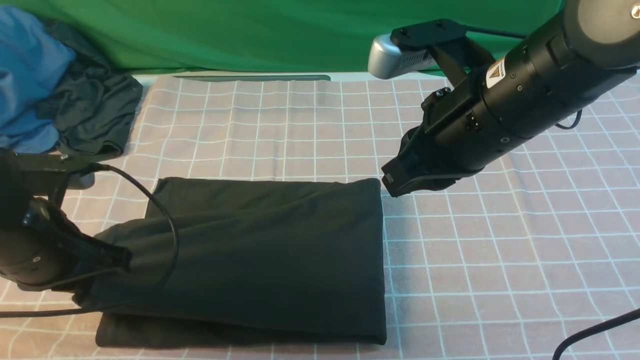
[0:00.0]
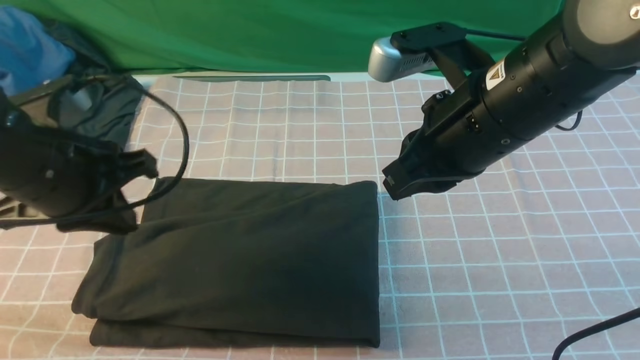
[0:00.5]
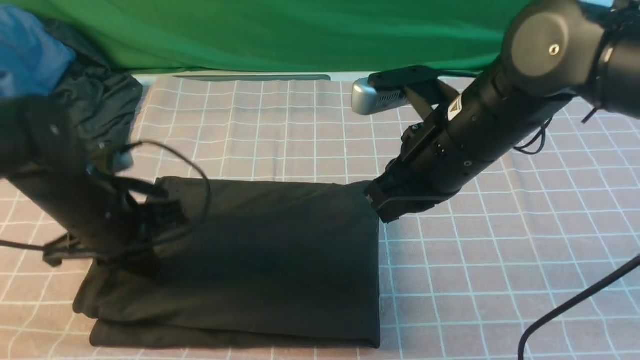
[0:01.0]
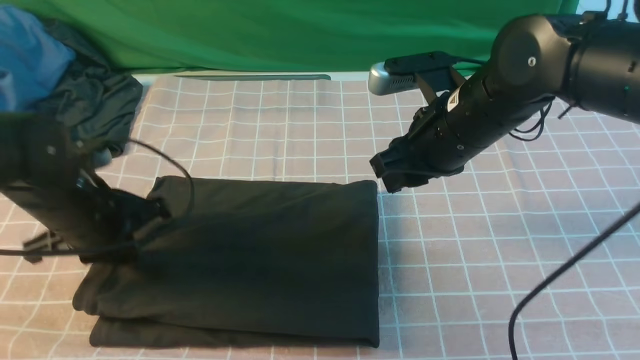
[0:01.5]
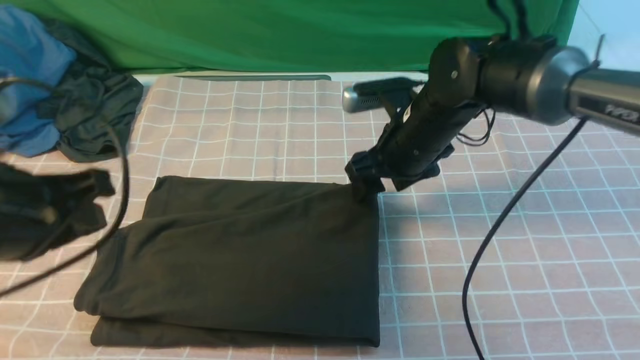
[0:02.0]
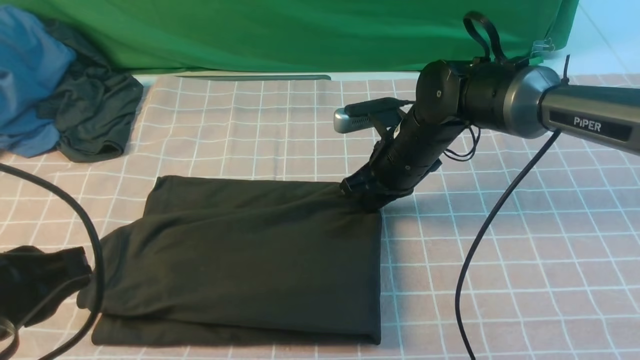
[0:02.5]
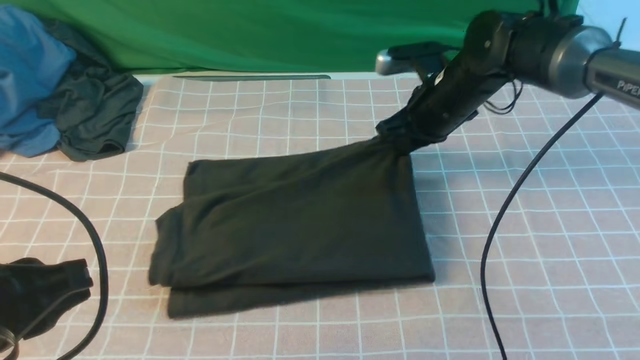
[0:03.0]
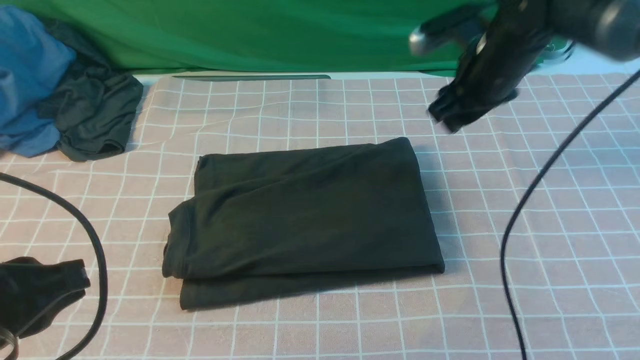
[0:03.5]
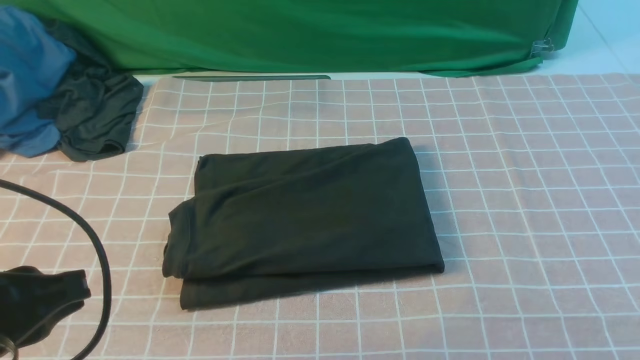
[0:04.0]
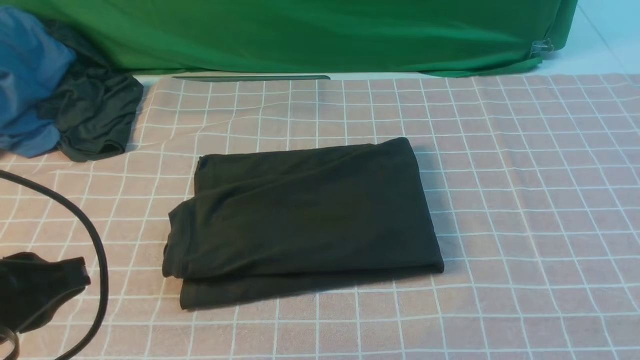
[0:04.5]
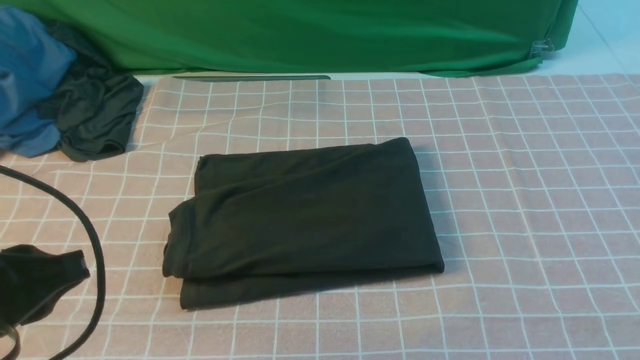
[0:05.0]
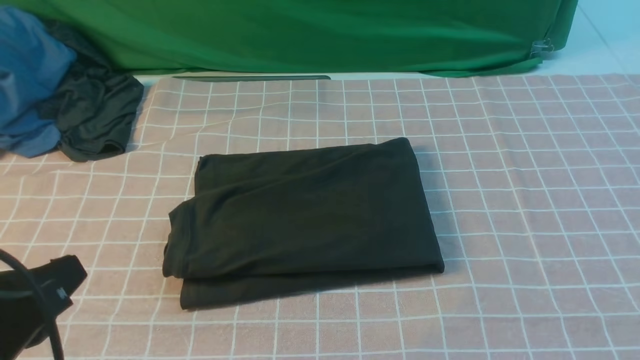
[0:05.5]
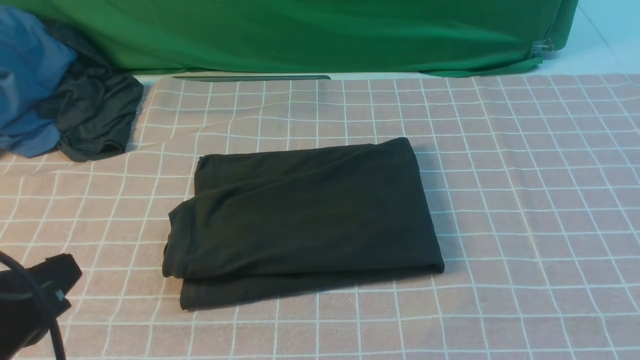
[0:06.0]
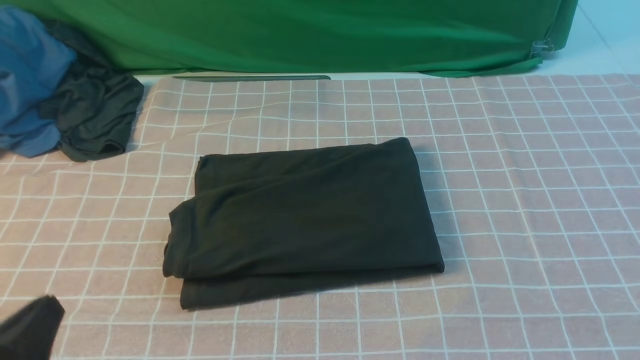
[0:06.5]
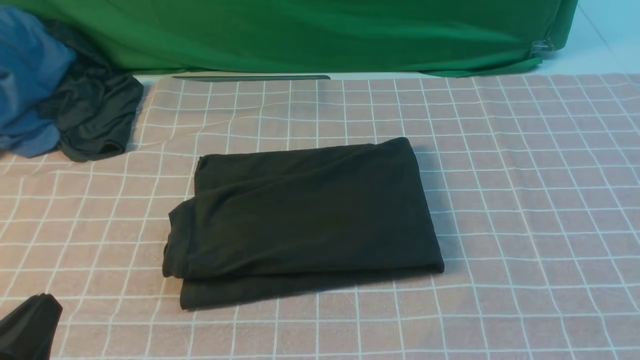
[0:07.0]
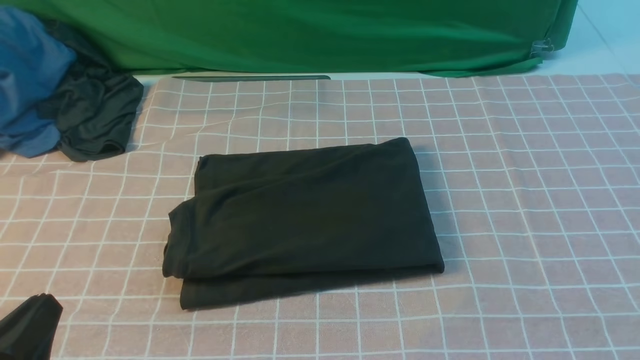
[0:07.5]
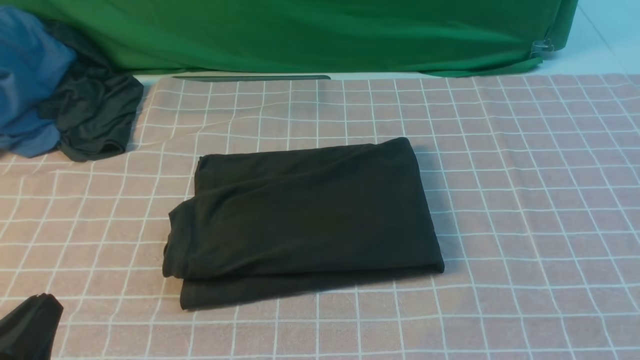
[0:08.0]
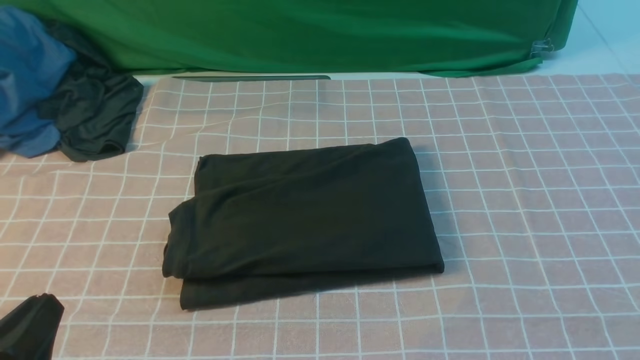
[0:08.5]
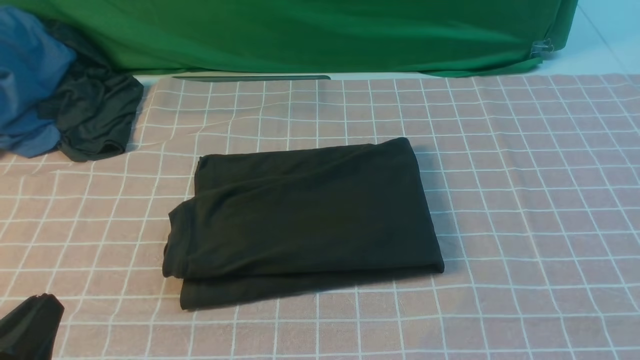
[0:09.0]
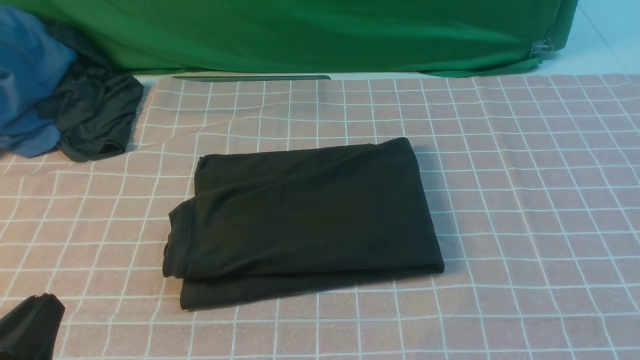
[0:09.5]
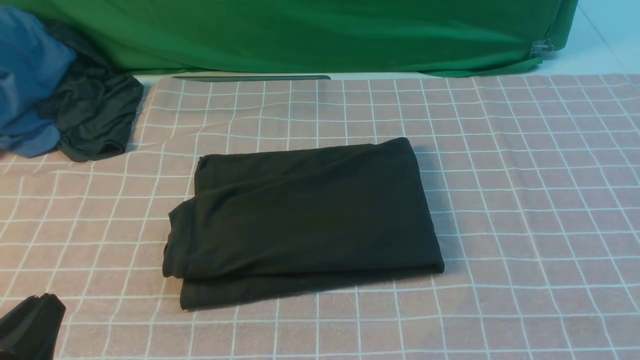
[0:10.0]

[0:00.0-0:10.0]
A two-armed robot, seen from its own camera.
0:00.0 to 0:02.0: The left gripper shifts roughly 10 cm upward and backward; the right gripper goes roughly 15 cm downward and forward, and opens.
0:02.0 to 0:04.0: The left gripper is displaced backward by approximately 5 cm; the right gripper travels upward, backward and to the right by roughly 35 cm, and closes its fingers.
0:06.0 to 0:08.0: The left gripper goes some 10 cm downward.

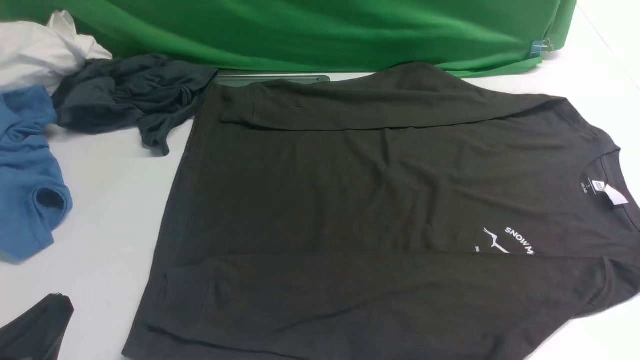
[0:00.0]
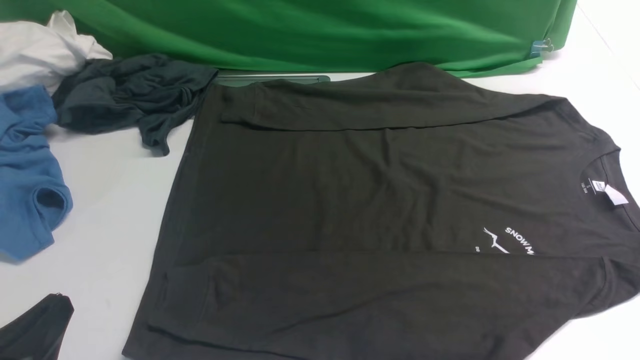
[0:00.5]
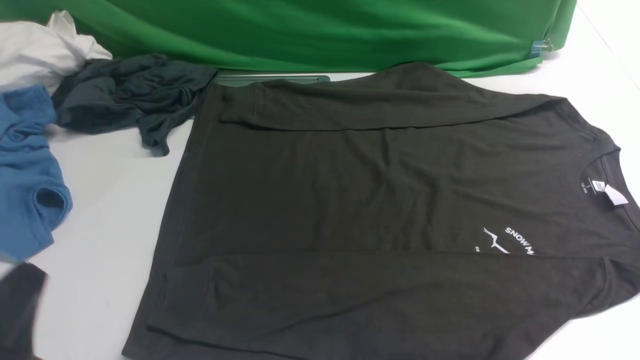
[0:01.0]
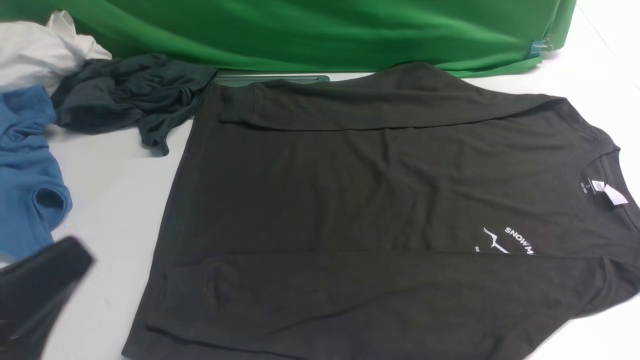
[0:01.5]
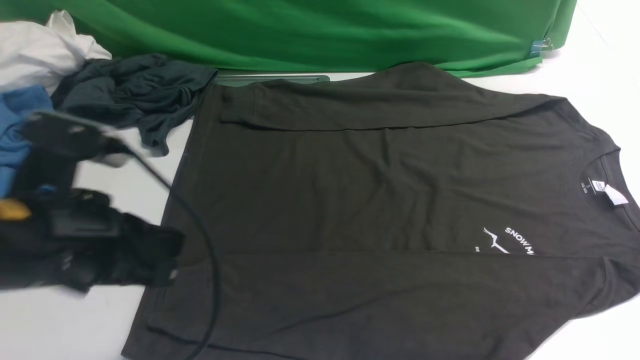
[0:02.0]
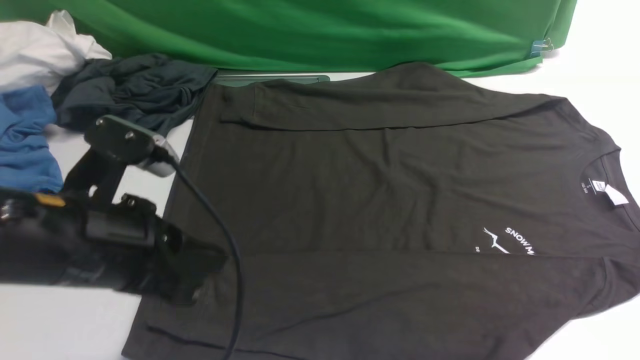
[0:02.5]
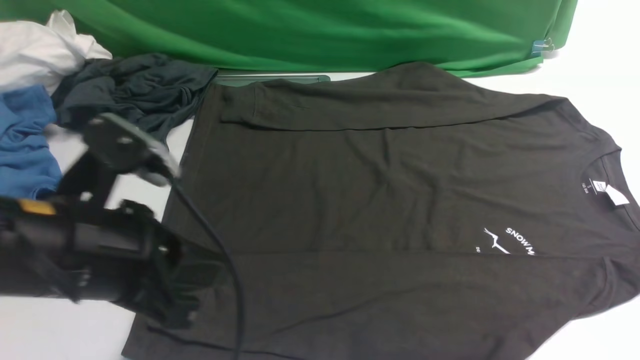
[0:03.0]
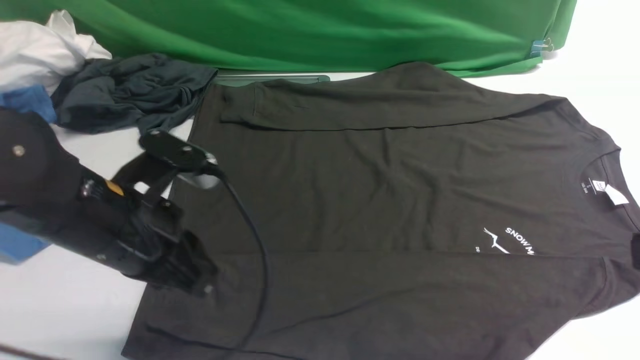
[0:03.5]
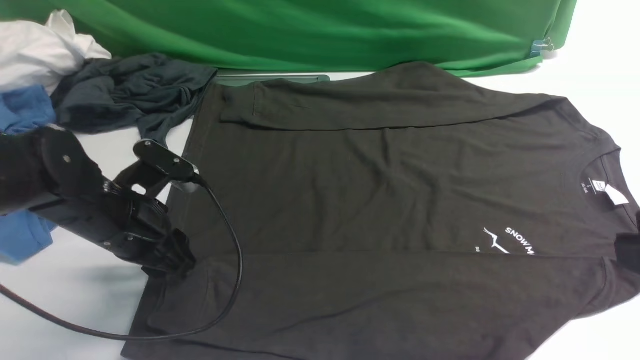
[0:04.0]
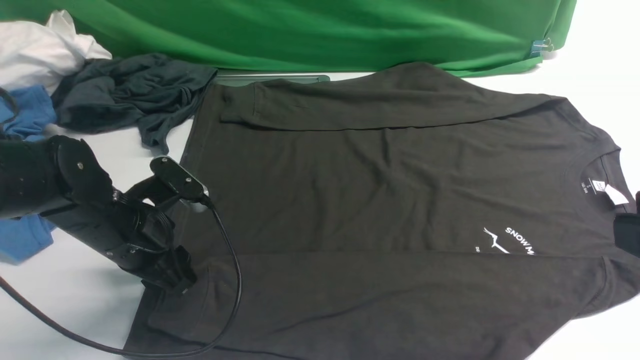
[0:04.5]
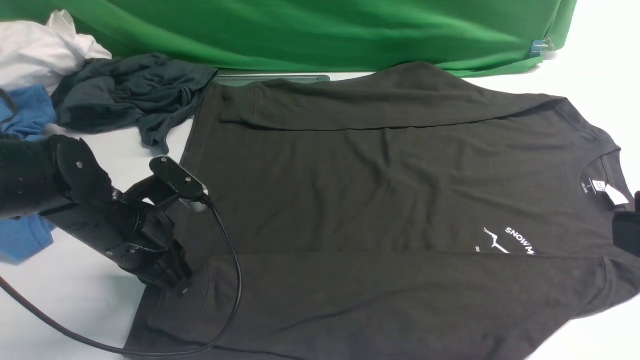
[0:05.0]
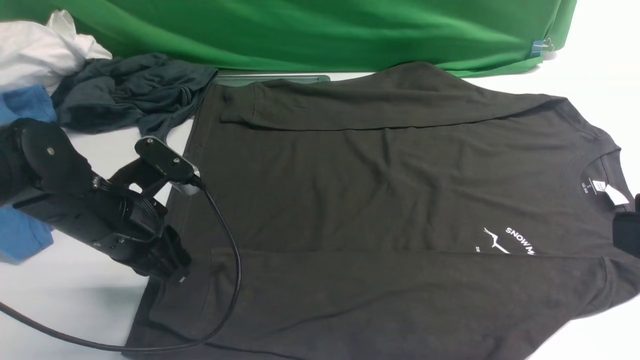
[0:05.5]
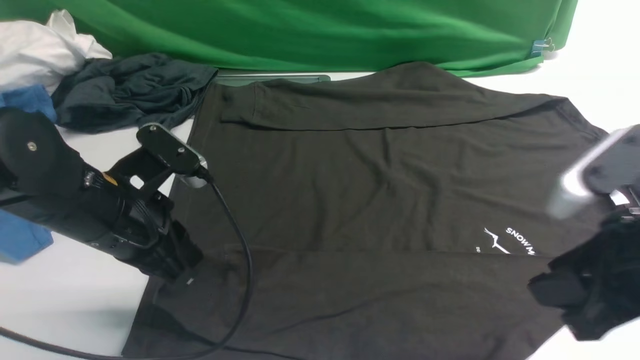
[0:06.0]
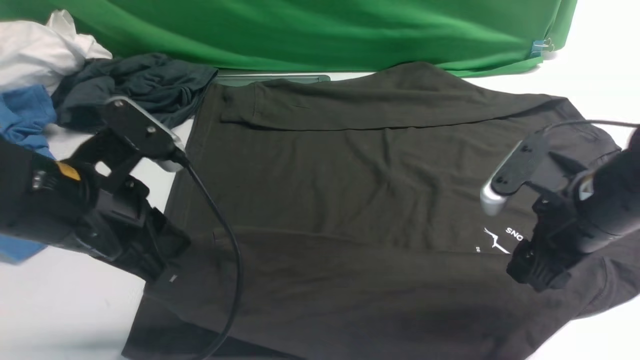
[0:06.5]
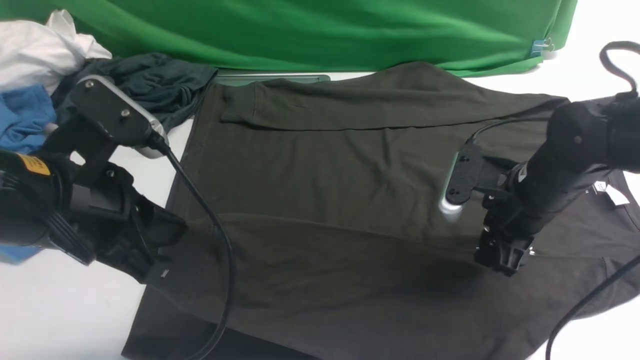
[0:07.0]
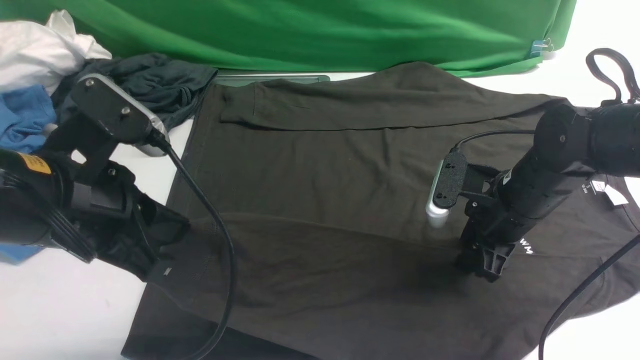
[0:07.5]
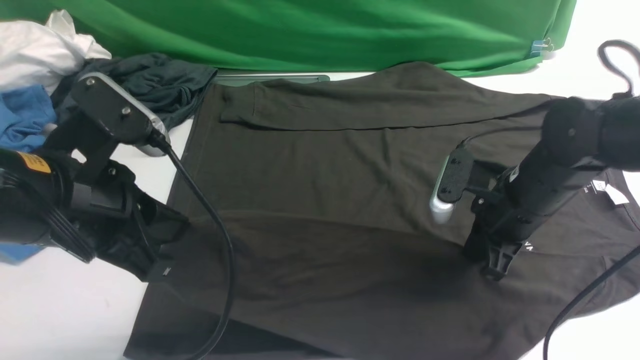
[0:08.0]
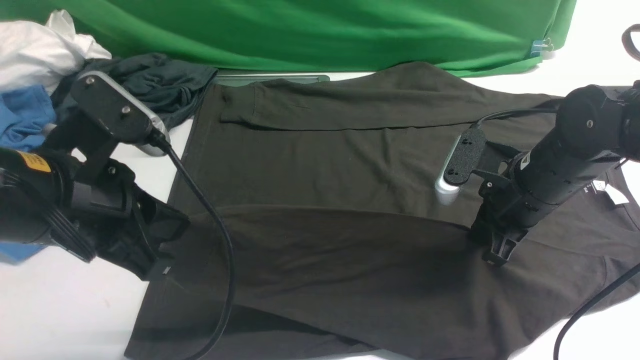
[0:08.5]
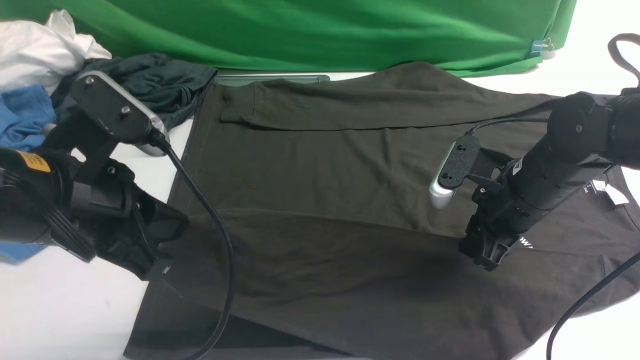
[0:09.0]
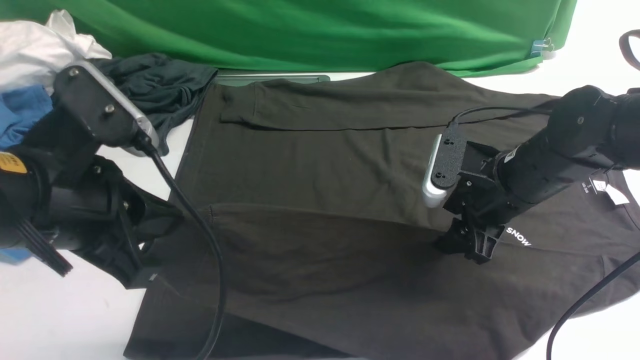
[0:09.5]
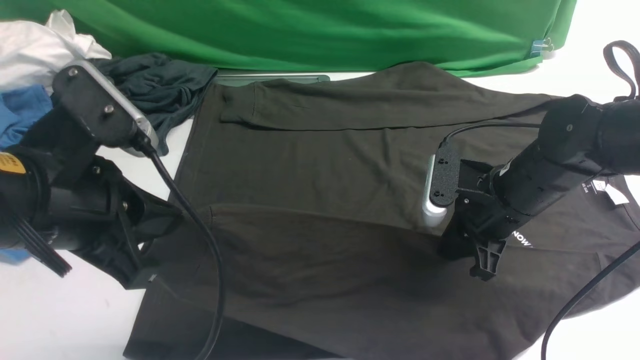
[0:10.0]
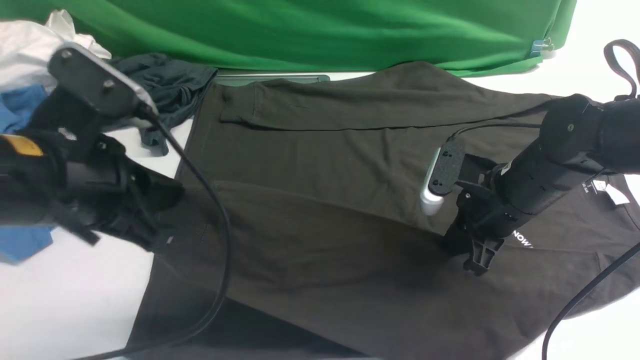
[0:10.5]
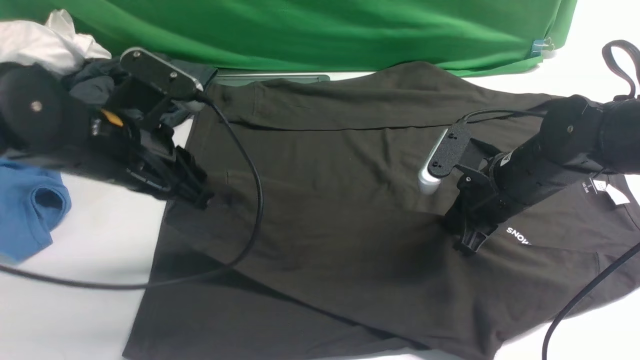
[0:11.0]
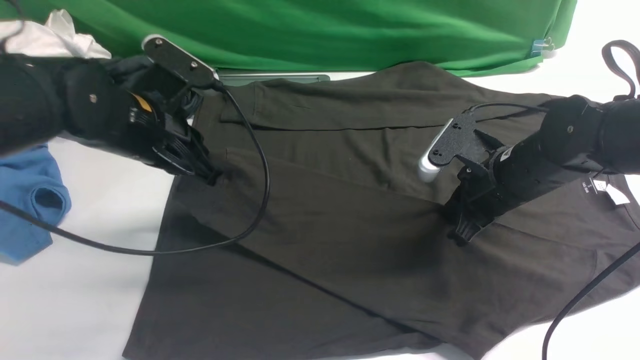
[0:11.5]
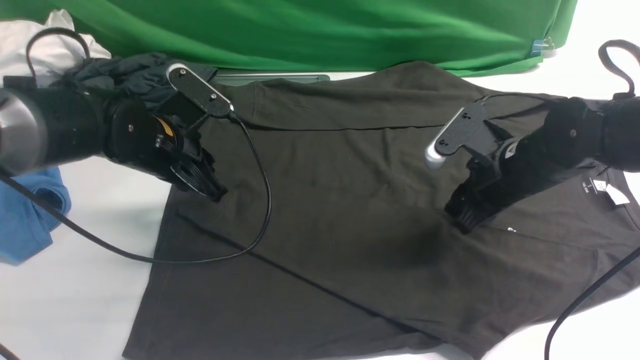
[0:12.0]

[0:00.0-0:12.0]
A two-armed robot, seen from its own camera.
Step, 0:00.0 to 0:05.0: use the left arm to clamp the cuff closest to it.
0:00.0 to 0:02.0: The left gripper is displaced forward, upward and to the right by some 15 cm.
0:02.0 to 0:04.0: The left gripper moves forward and downward, about 15 cm, and opens its fingers.
0:04.0 to 0:06.0: The left gripper moves upward, roughly 5 cm, and closes; the right gripper heads forward and downward, covering about 10 cm.
0:06.0 to 0:08.0: The right gripper is displaced forward and downward by about 20 cm, and closes, while the left gripper moves upward, some 5 cm.
0:08.0 to 0:10.0: The right gripper opens and closes again.
0:10.0 to 0:12.0: The left gripper moves forward and downward, roughly 20 cm, and opens up.
